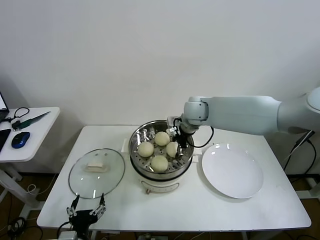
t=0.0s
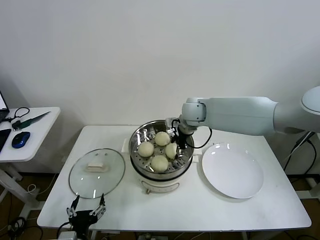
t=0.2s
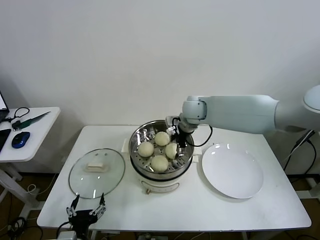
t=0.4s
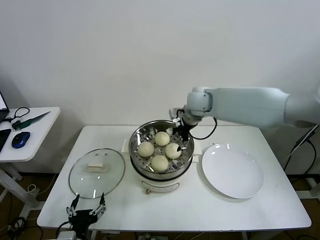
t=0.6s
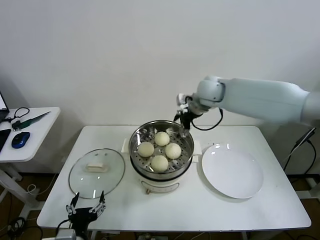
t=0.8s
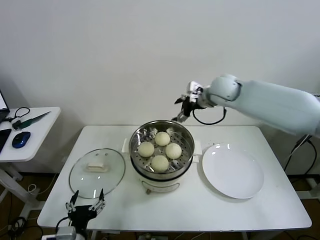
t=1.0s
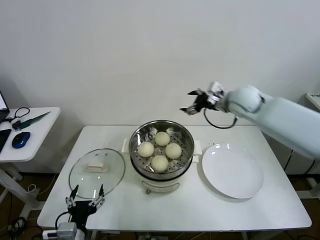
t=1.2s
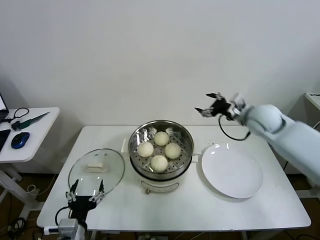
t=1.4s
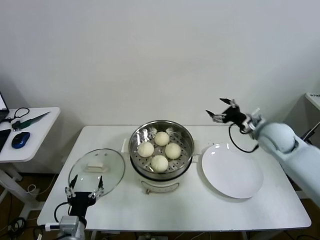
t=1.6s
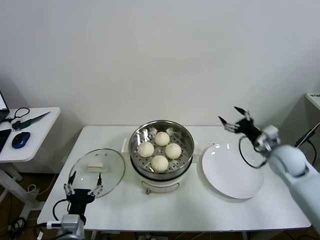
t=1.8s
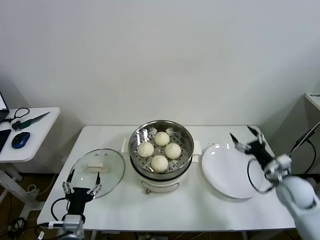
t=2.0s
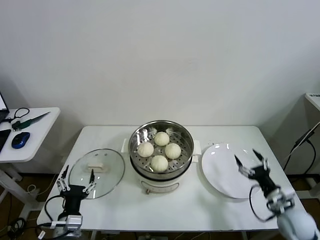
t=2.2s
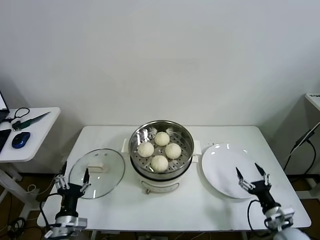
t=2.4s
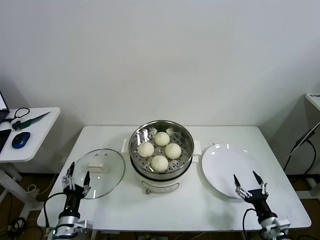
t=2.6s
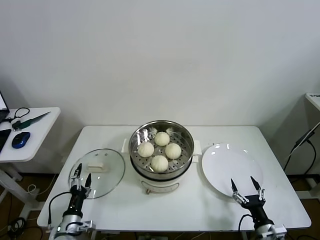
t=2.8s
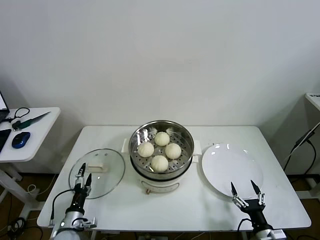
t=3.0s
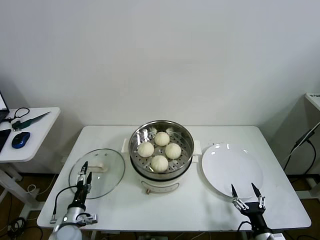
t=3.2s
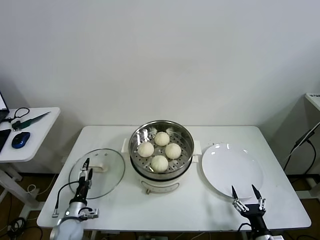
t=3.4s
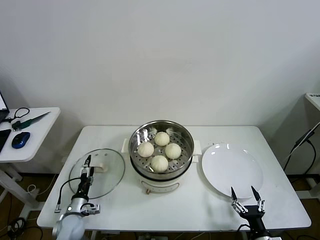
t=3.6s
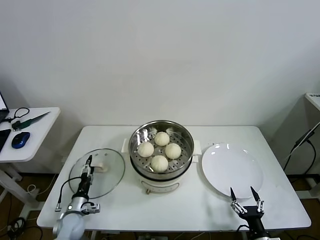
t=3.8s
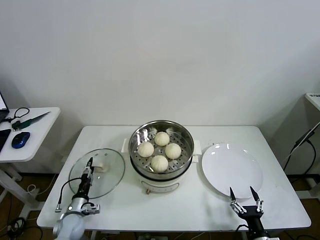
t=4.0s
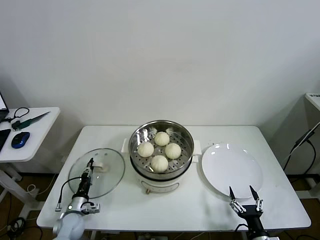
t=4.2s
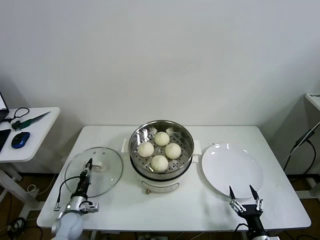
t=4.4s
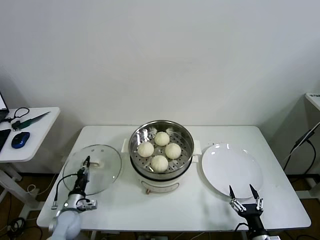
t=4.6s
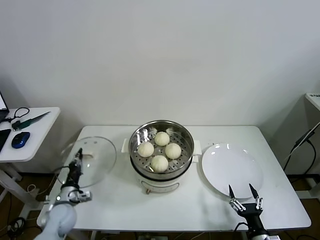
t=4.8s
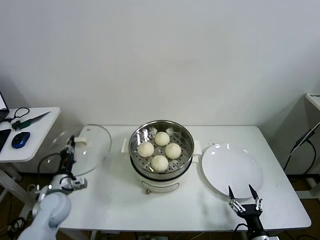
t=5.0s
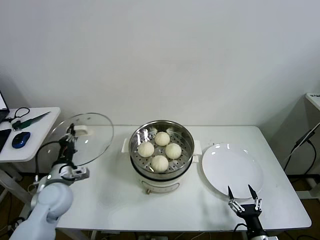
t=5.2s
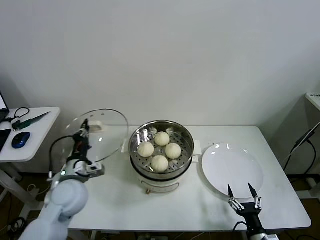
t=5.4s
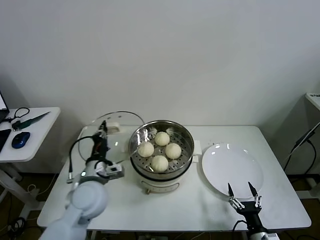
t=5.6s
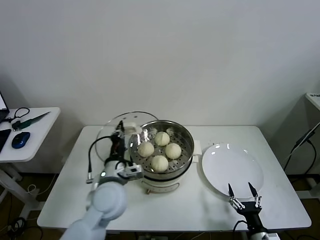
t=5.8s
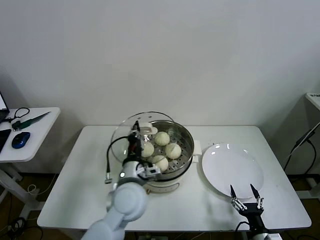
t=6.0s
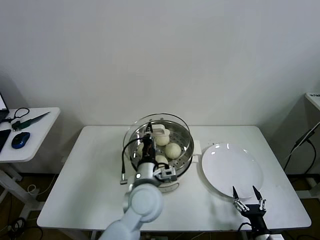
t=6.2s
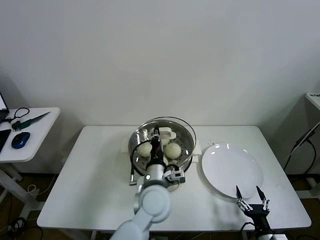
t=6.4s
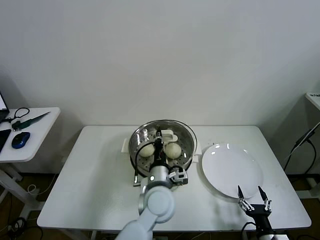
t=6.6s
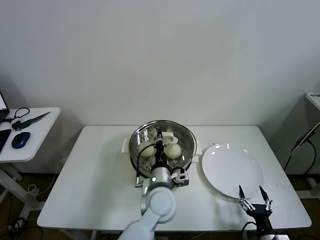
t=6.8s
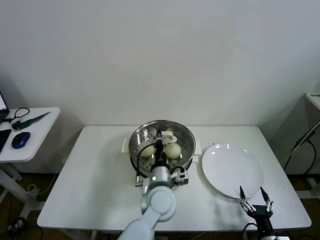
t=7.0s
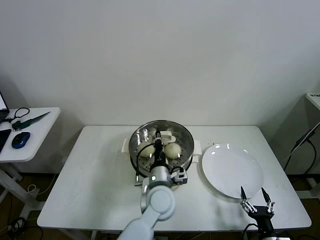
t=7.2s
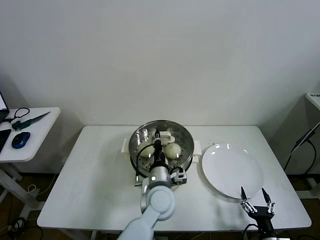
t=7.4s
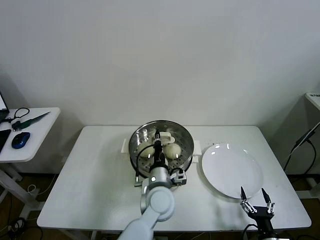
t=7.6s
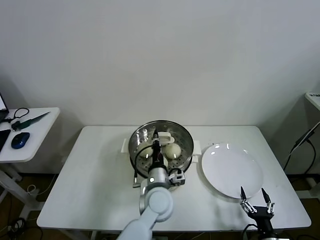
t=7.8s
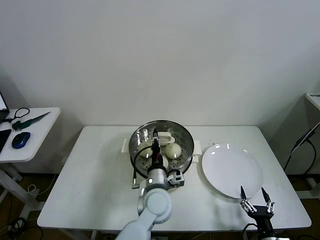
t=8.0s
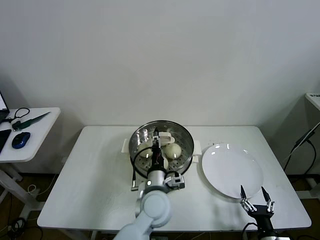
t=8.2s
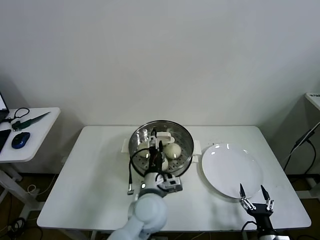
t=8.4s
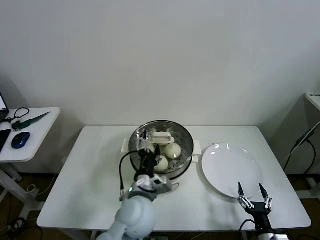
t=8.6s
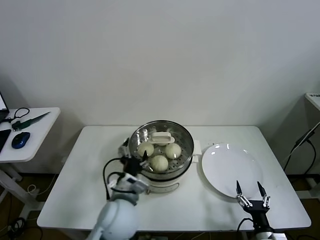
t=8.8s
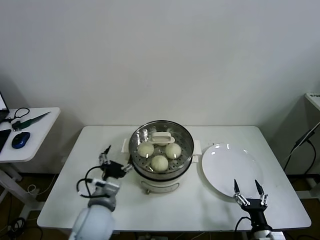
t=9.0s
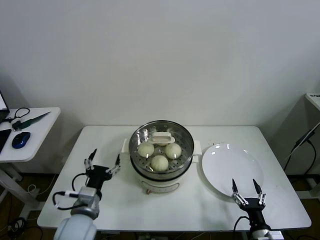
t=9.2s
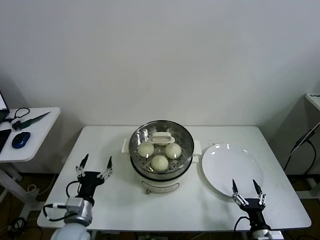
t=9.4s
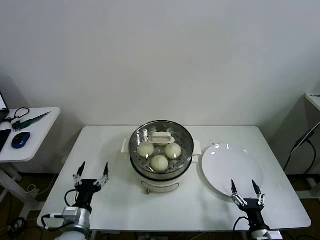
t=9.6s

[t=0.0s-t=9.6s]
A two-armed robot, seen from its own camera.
Task of the whole recording: take steamed baozi put them in steamer then cover it.
Step, t=0.6s to t=4.4s: Grasp the pot lid with left gripper.
Step, t=4.6s to t=8.4s: Place the pot lid on the steamer with left gripper.
t=0.0s to t=1.6s: The right gripper heads to the right, covering roughly 25 cm, and opens its fingers.
t=1.6s to t=3.2s: The right gripper goes some 40 cm backward and downward. The left gripper goes approximately 20 cm downward, to the left and forward.
t=3.2s to t=4.8s: The left gripper is displaced forward by roughly 5 cm, and closes up.
t=4.8s to t=6.4s: The left gripper is displaced to the right and upward by some 40 cm.
t=6.4s to t=8.0s: The left gripper moves roughly 5 cm.
t=8.0s to t=9.6s: The left gripper shifts approximately 25 cm to the left and backward, and opens up.

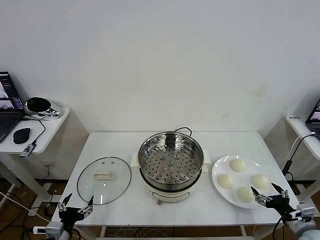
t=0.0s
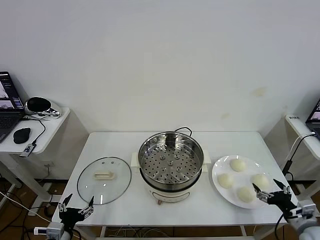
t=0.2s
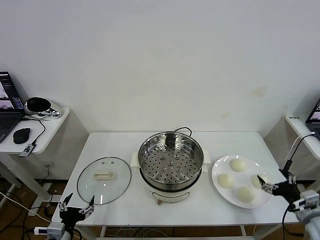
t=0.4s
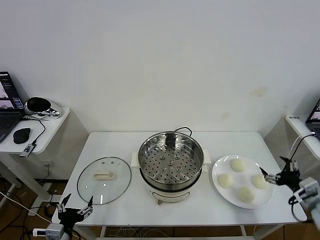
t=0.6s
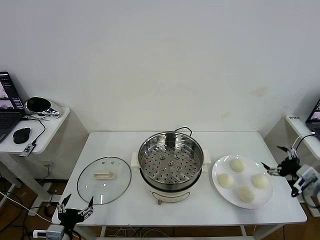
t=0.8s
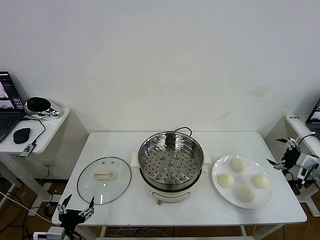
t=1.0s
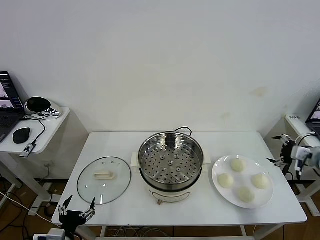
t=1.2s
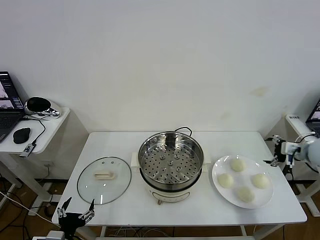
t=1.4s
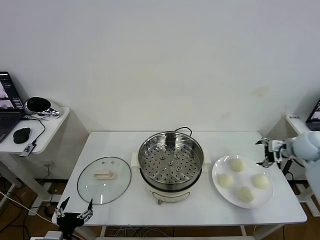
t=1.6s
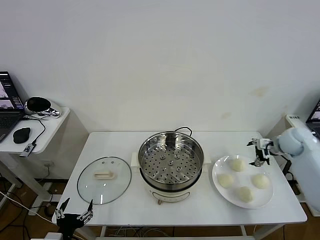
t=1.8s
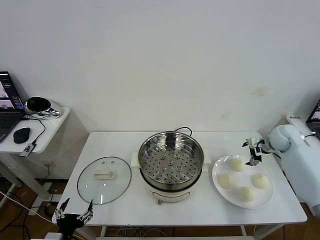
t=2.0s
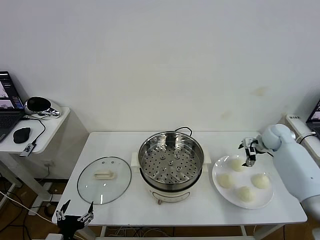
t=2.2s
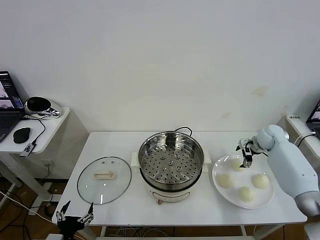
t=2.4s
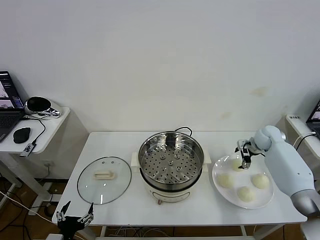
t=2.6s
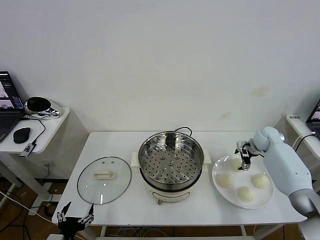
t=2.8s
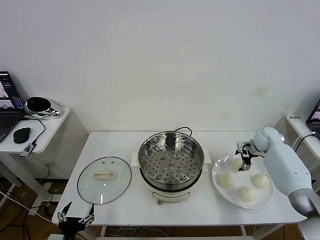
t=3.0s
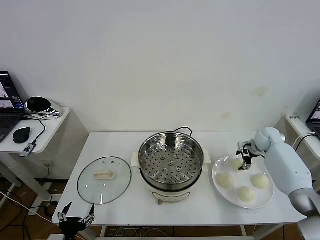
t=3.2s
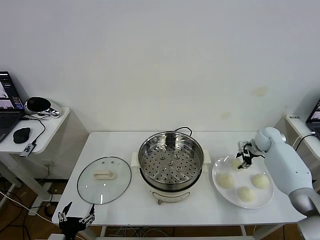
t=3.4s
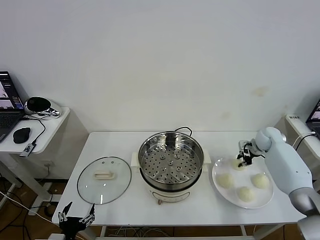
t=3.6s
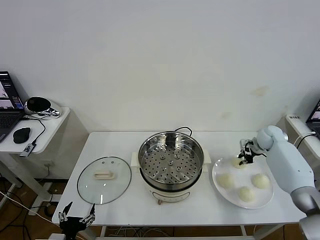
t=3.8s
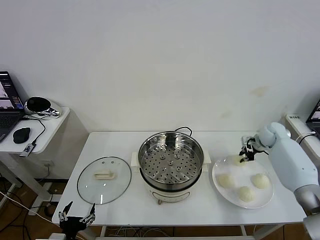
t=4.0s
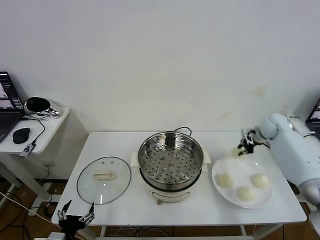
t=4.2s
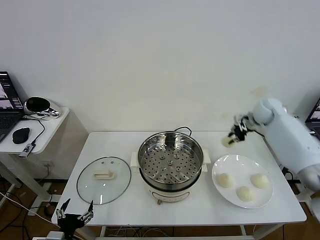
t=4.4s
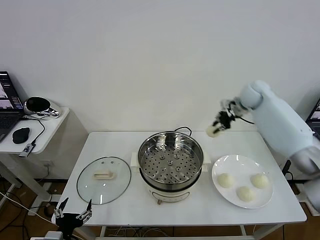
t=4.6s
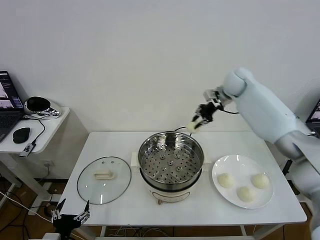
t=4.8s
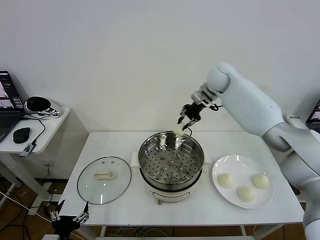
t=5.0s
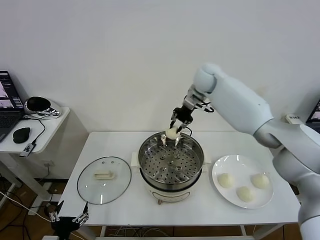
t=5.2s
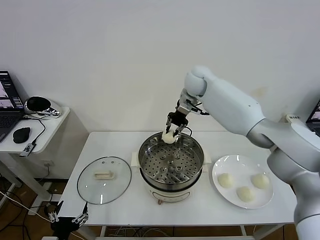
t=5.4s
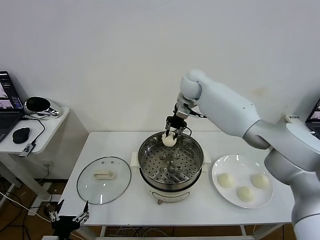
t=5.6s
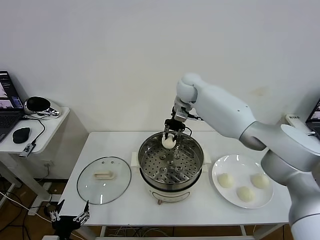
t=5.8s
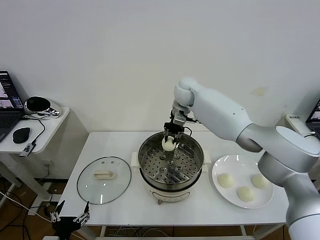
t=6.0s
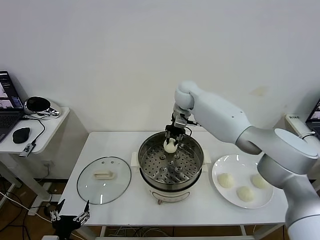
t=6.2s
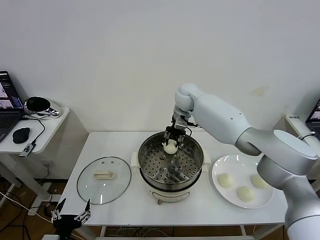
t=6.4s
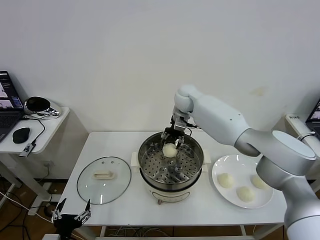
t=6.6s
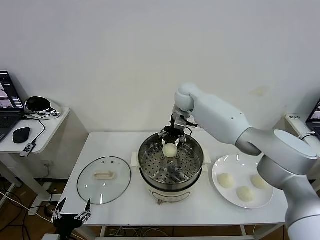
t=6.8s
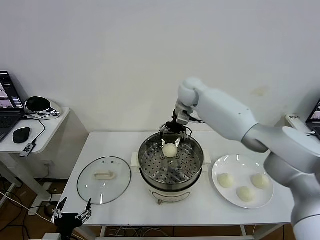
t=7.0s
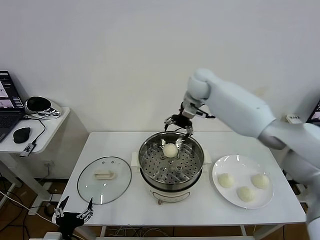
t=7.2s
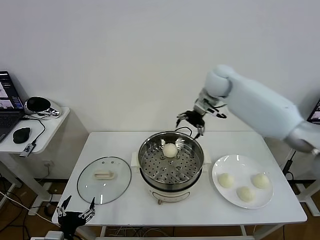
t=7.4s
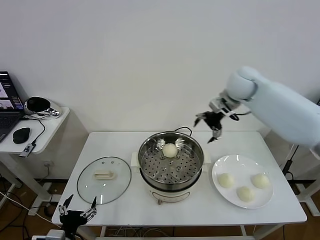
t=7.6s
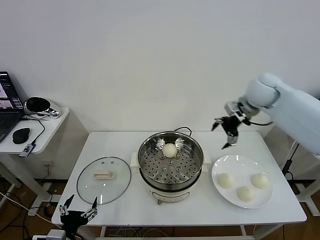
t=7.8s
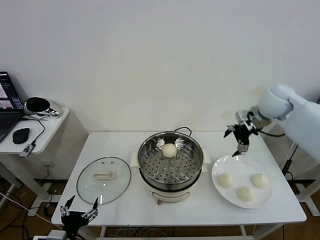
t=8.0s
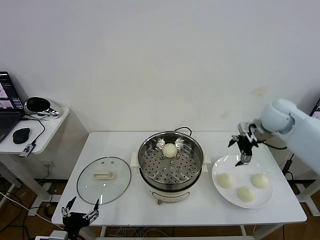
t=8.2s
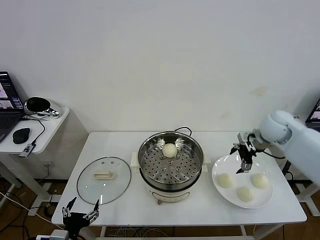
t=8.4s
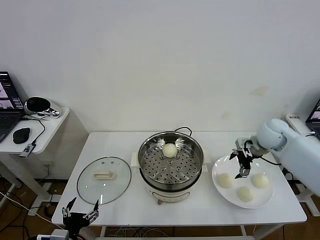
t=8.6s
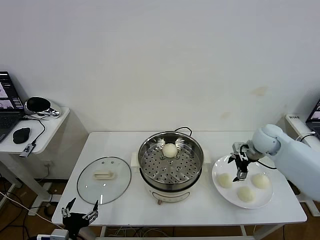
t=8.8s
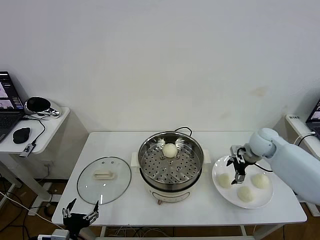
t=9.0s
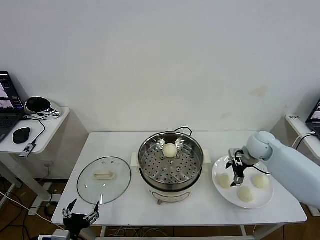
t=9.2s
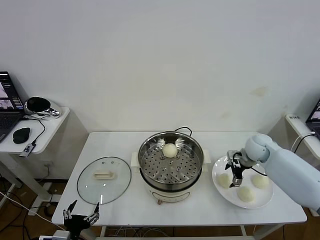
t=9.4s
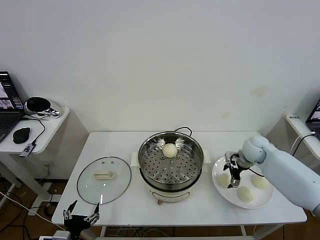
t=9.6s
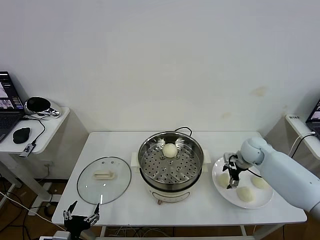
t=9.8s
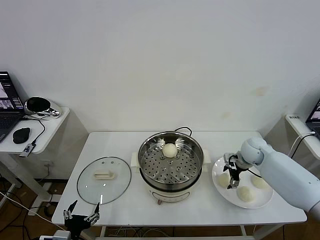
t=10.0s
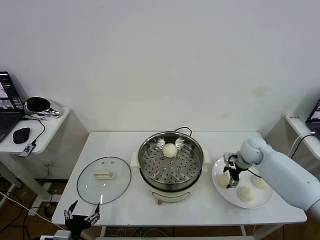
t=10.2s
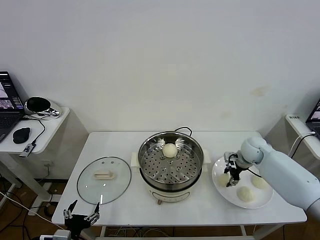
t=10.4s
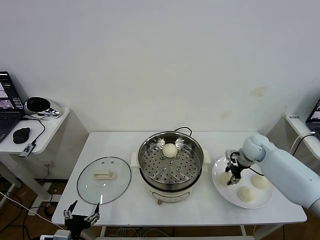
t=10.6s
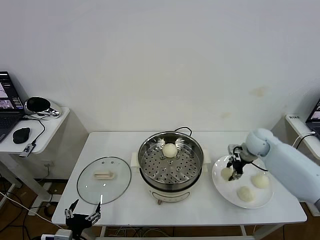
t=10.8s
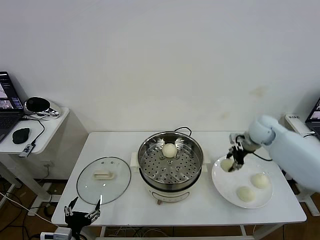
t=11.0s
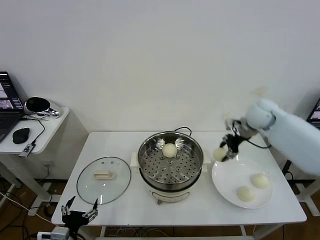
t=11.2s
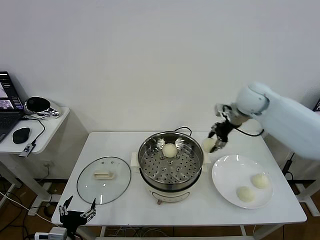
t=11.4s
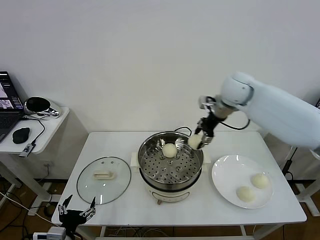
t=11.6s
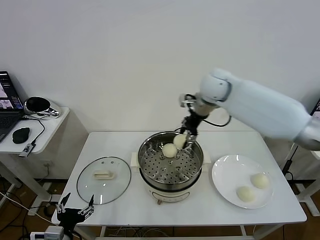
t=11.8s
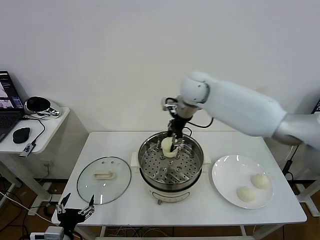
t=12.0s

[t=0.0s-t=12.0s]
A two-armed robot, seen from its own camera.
Task of the whole recording: take steamed baozi put them in steamer then cover it.
Step, t=0.0s to t=3.6s: Grasp the baozi in the plate with right gripper.
Step, t=3.8s to t=6.8s: Place the baozi on the steamer with right gripper.
Step, t=7.0s to t=10.4s: Grasp the baozi in the plate with right gripper.
t=1.6s to t=3.0s: The right gripper shifts some 10 cm forward and downward.
t=3.0s to t=4.4s: The right gripper goes about 20 cm upward and to the left, and closes.
t=4.4s to t=6.0s: The right gripper goes approximately 25 cm to the left.
t=6.0s to t=7.6s: The right gripper is displaced to the right by some 20 cm, and opens up.
t=7.6s to t=9.0s: The right gripper heads downward, covering approximately 20 cm.
t=9.0s to t=10.4s: The right gripper closes.
t=10.4s to t=12.0s: The right gripper moves to the left and upward, about 35 cm.
